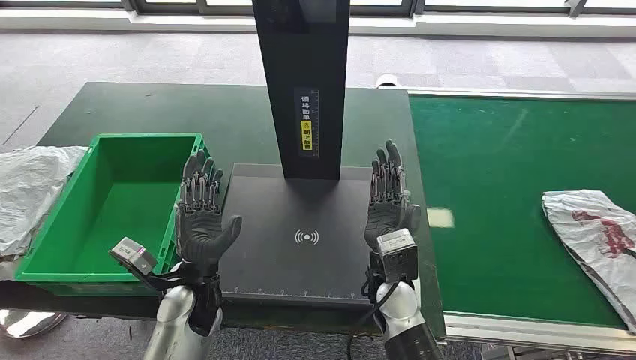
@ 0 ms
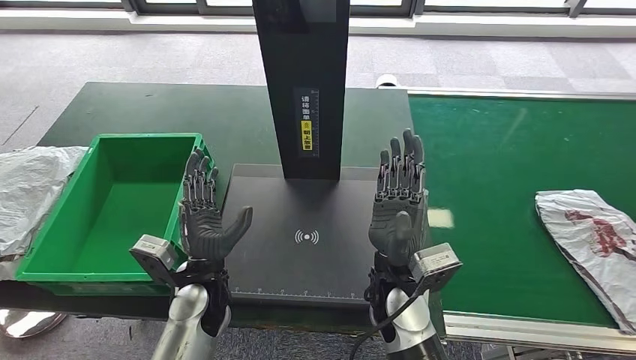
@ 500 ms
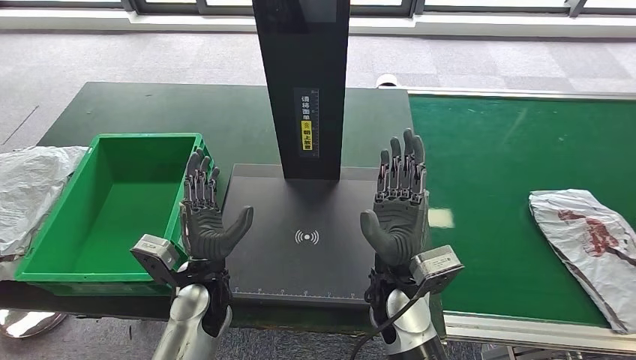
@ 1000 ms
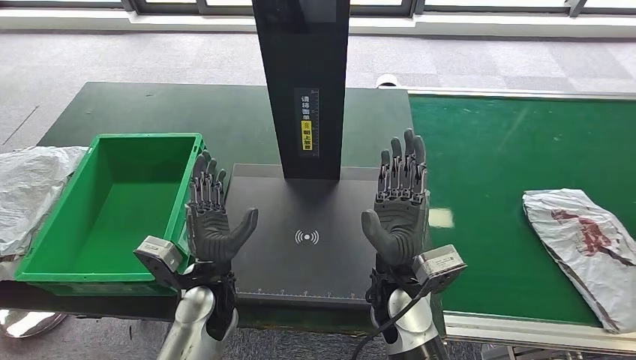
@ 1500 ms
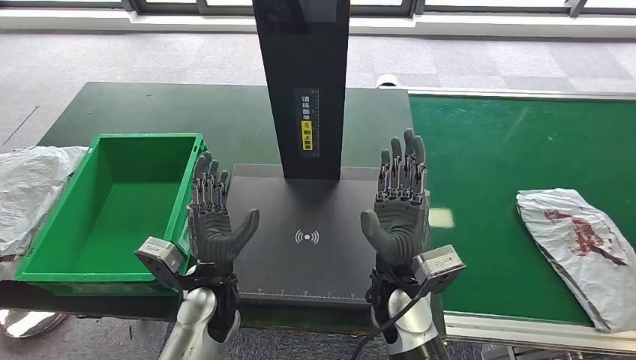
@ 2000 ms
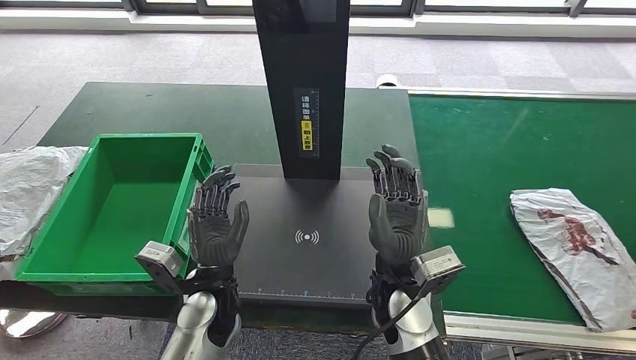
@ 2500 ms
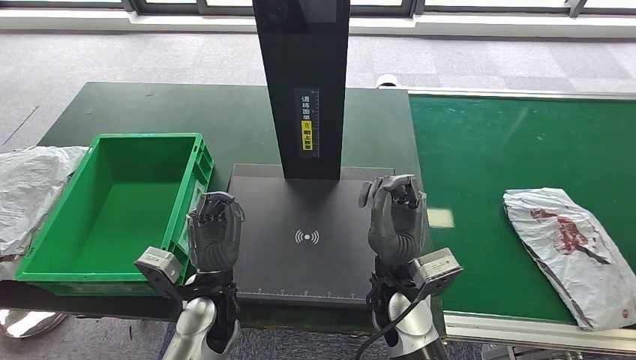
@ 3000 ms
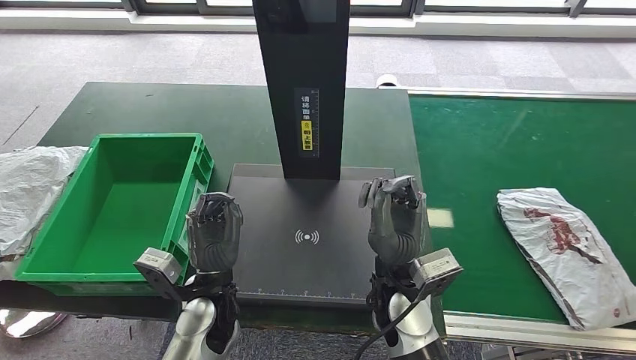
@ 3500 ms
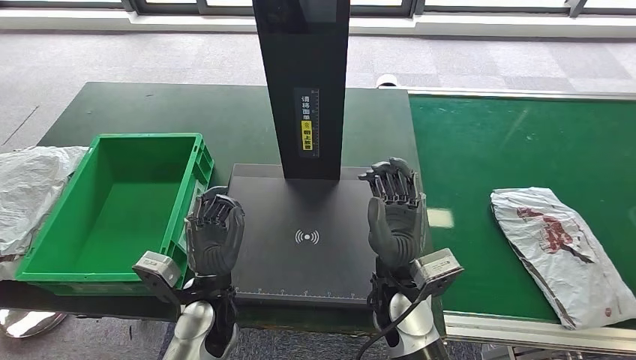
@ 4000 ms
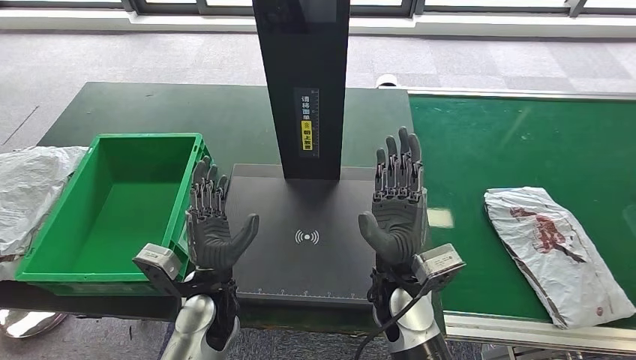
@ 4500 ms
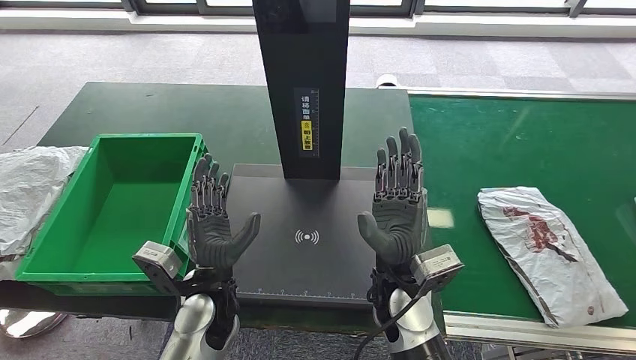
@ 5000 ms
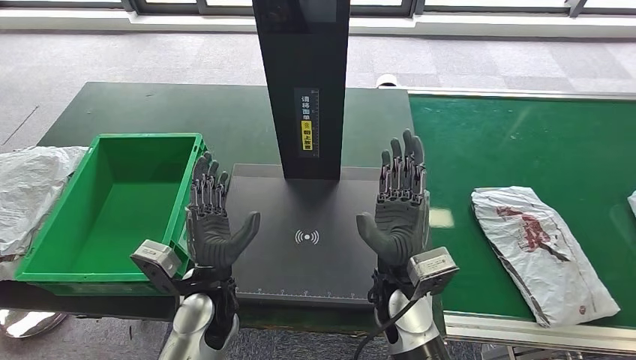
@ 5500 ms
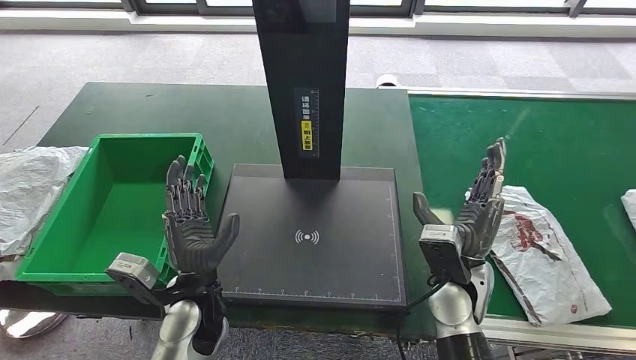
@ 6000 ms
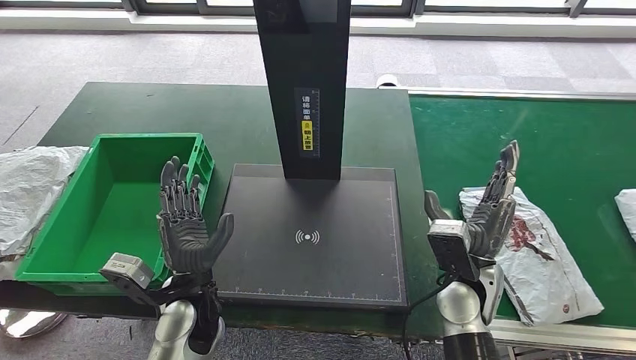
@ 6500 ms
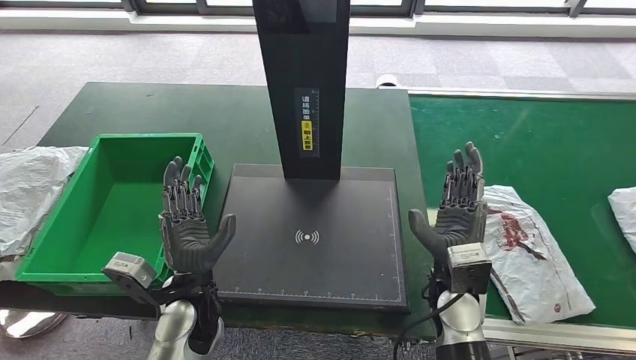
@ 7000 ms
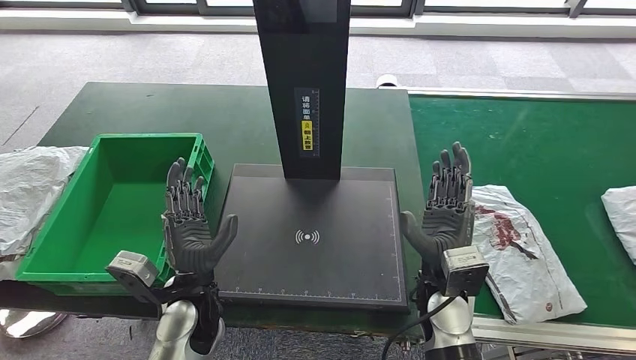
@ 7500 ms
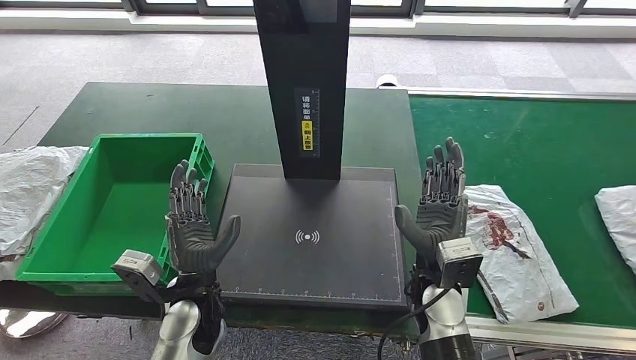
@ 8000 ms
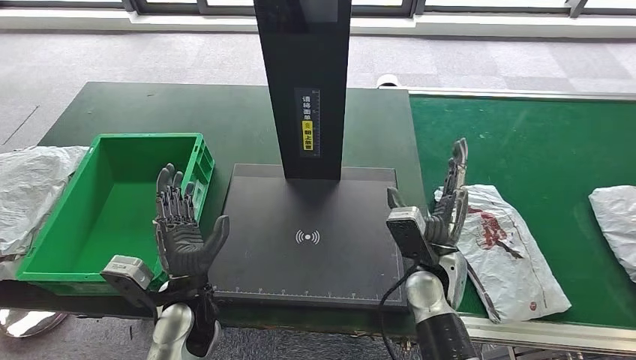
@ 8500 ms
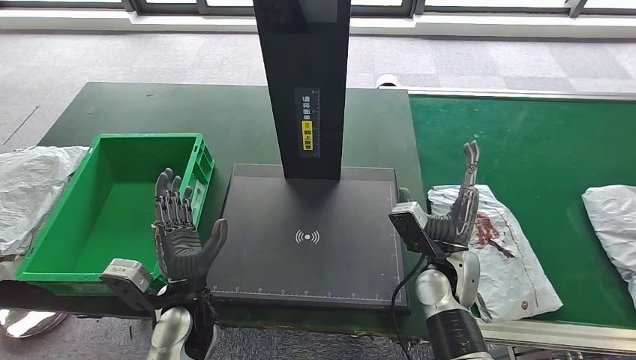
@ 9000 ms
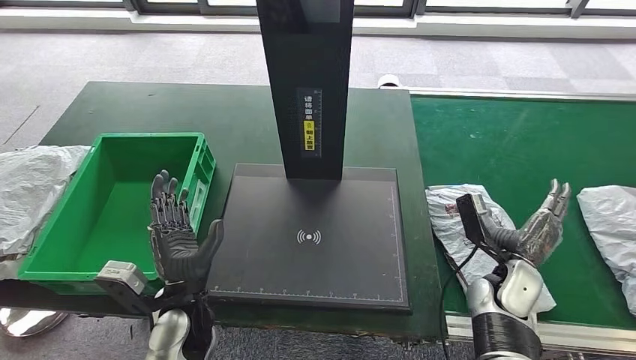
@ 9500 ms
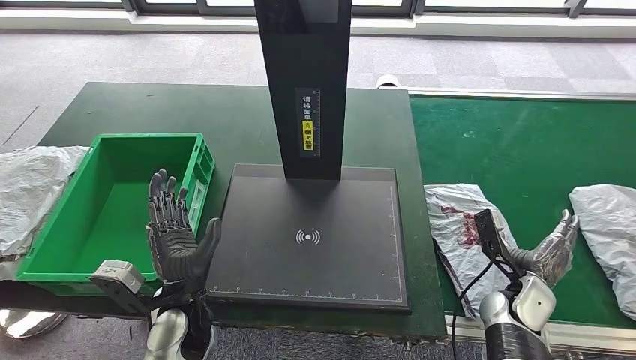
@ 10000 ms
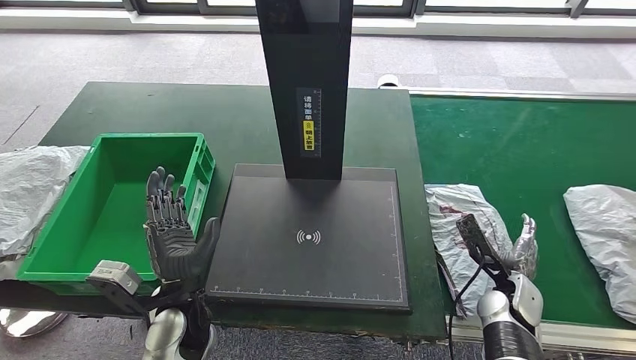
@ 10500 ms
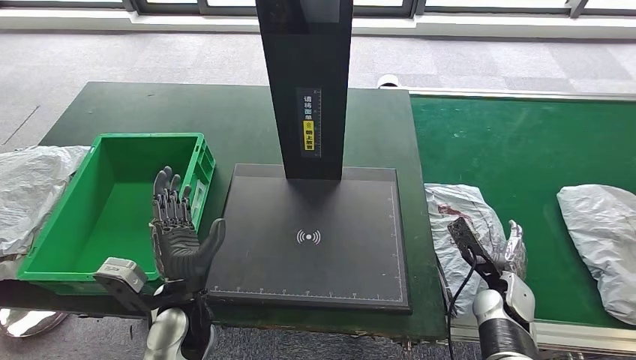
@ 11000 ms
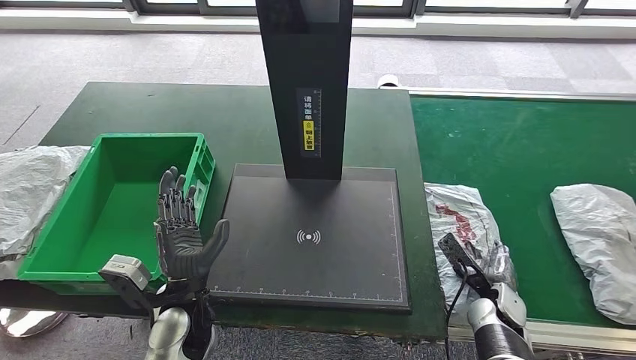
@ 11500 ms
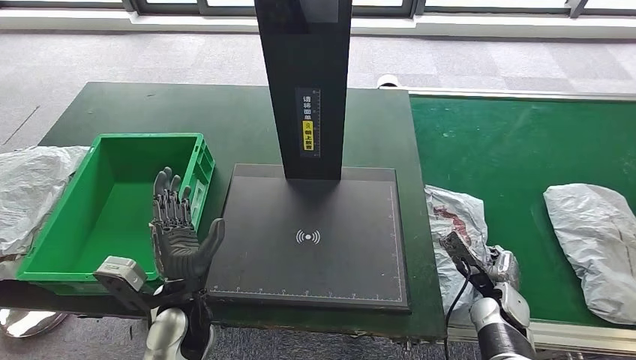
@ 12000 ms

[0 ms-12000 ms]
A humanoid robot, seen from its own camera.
2000 ms to 4000 ms: There are only small adjustments of the hands.
4000 ms to 6000 ms: The right hand is displaced to the right by roughly 10 cm.
8000 ms to 10000 ms: The right hand is displaced to the right and downward by roughly 20 cm.

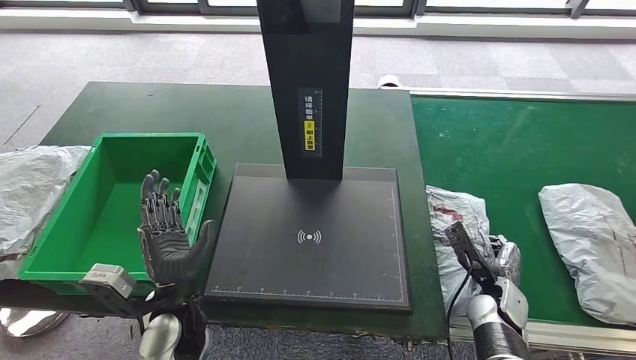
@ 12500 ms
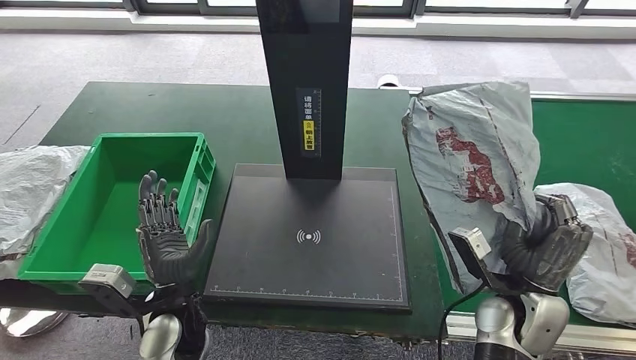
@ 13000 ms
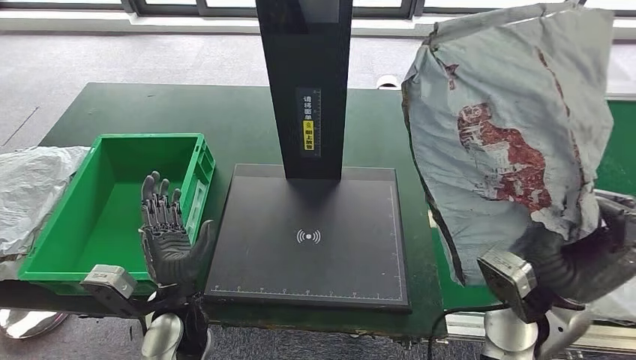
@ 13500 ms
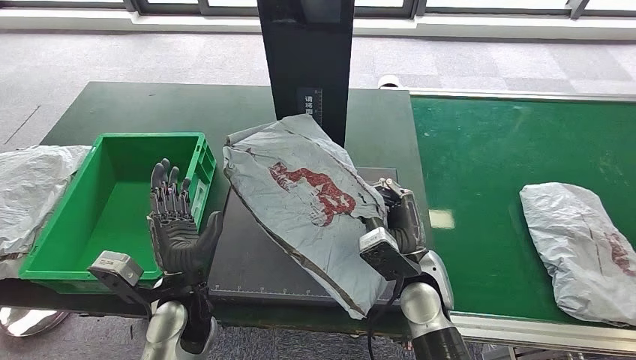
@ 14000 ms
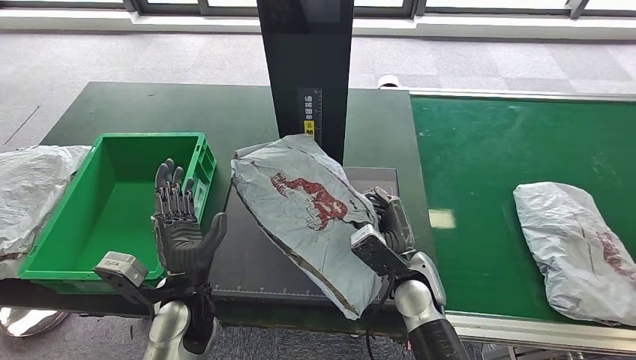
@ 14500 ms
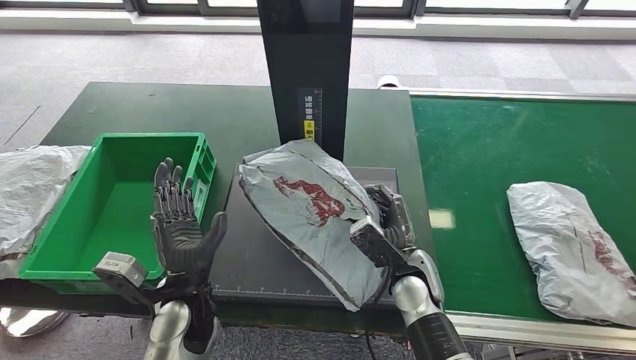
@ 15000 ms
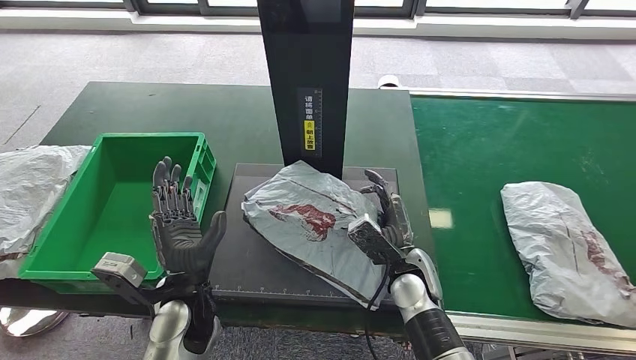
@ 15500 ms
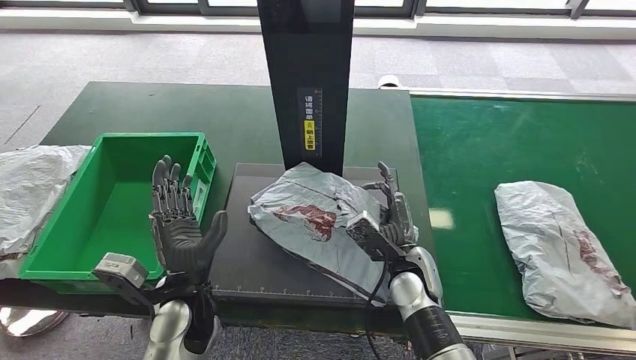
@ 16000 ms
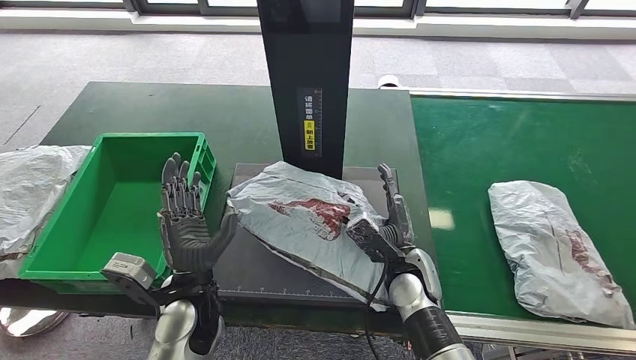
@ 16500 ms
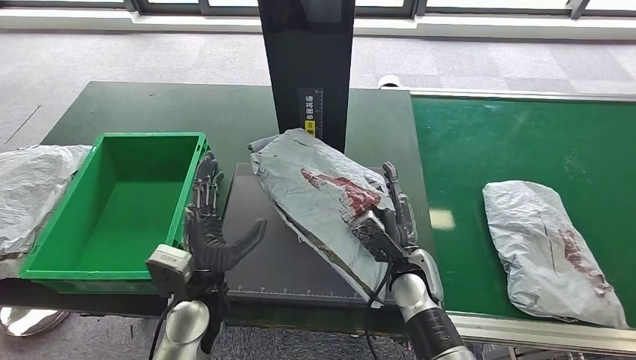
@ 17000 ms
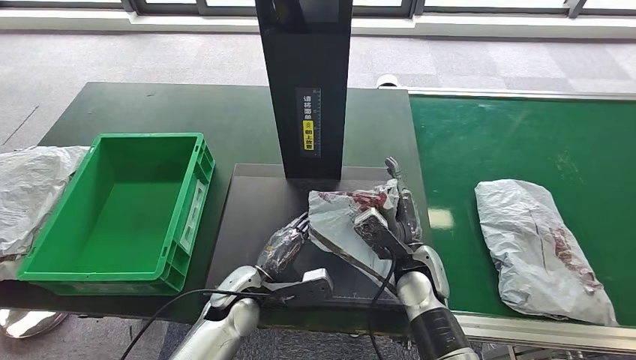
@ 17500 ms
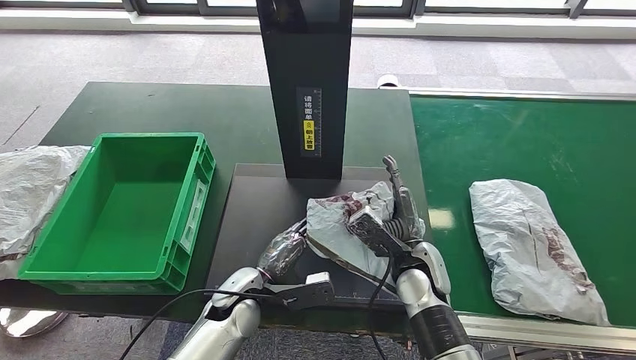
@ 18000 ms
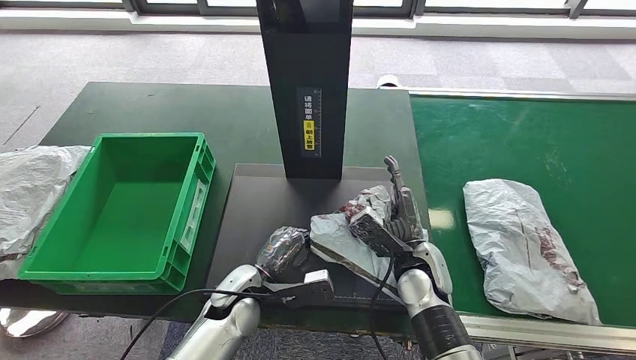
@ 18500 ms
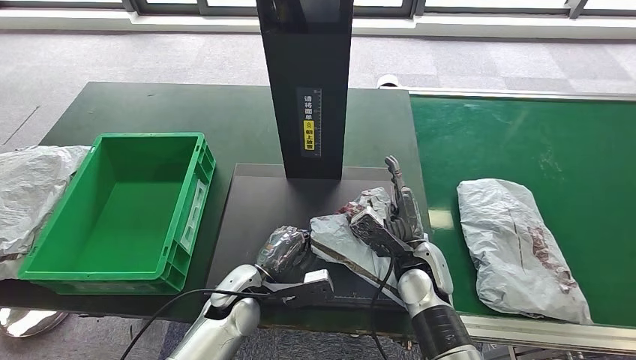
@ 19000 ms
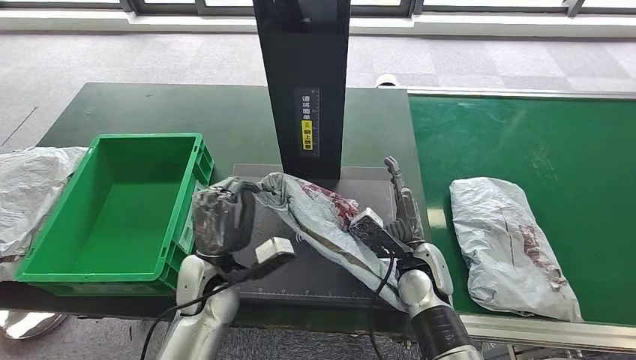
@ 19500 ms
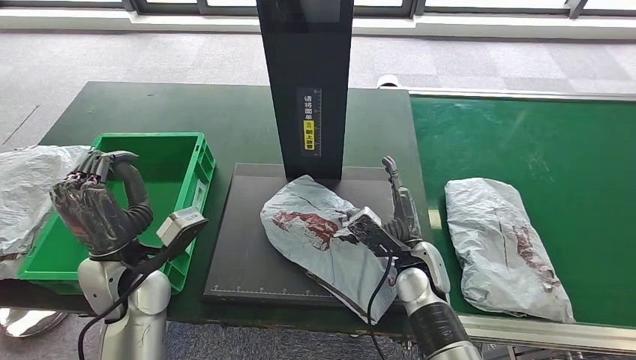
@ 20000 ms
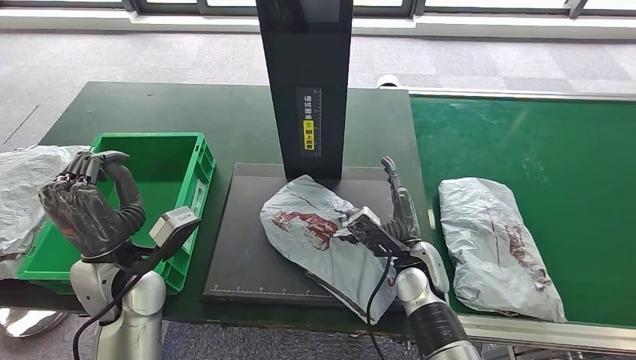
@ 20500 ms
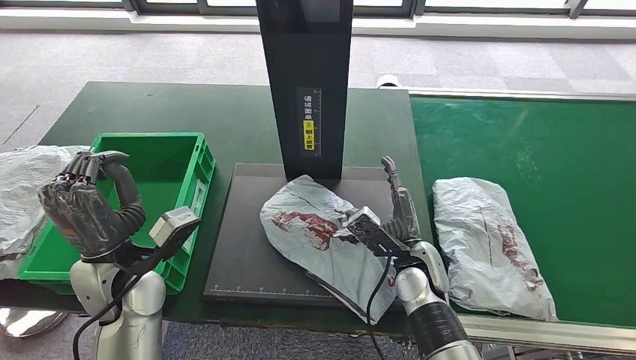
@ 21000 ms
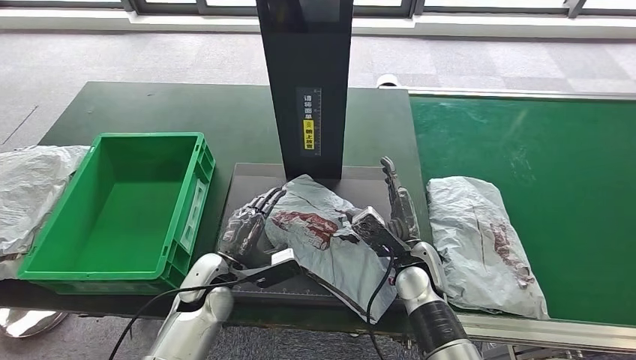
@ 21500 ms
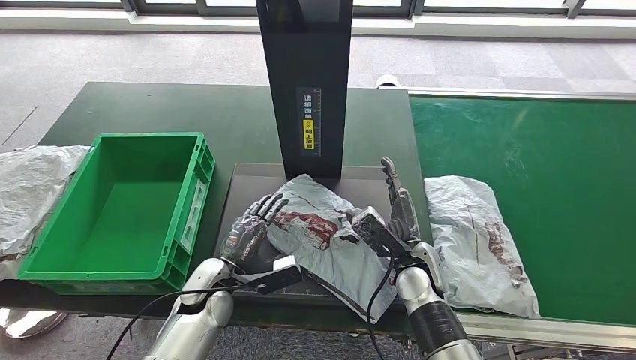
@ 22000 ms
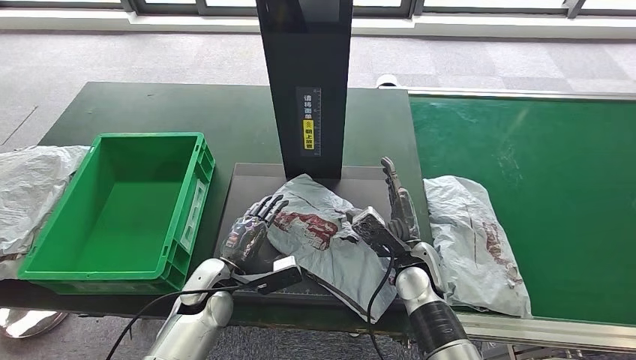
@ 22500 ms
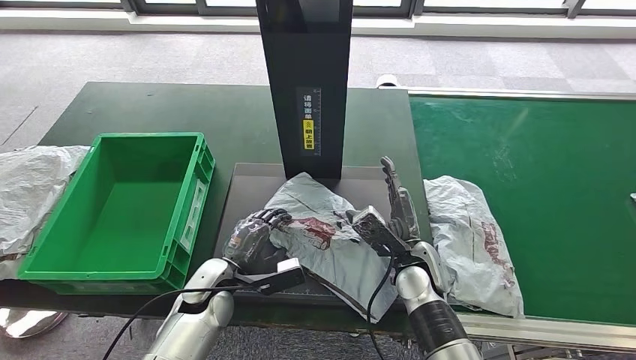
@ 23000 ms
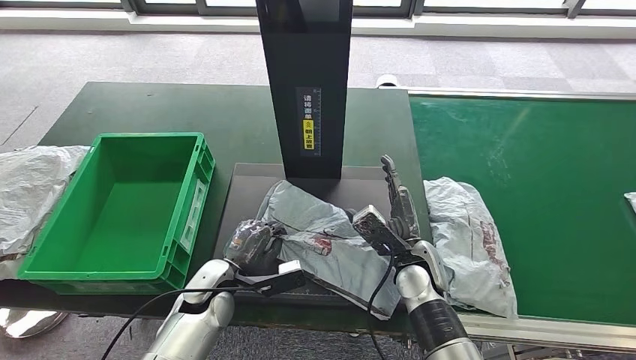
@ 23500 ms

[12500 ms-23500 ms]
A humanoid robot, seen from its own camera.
Step, 12500 ms to 14500 ms: Take the parcel off the conveyor belt.
Step, 15000 ms to 22500 ms: Place the parcel onto the inbound machine.
14500 ms to 16000 ms: The hands make only small movements.
16000 ms to 18000 ms: The left hand heads downward and to the right, covering roughly 10 cm.
18000 ms to 20000 ms: The left hand moves upward and to the left, some 20 cm.
20000 ms to 21500 ms: The left hand heads downward and to the right, covering roughly 15 cm.
21500 ms to 23500 ms: The hands make only small movements.
